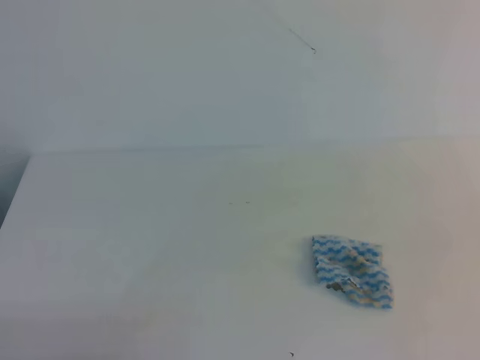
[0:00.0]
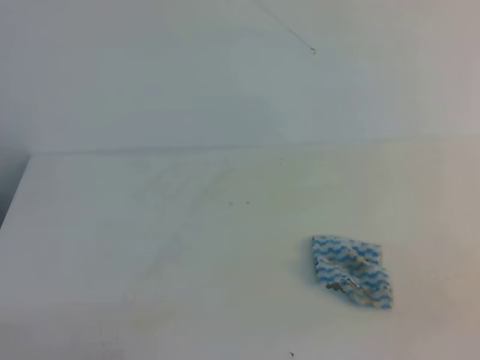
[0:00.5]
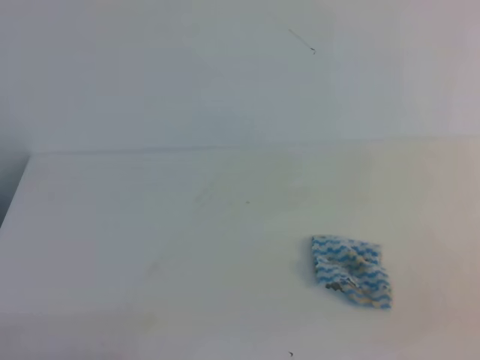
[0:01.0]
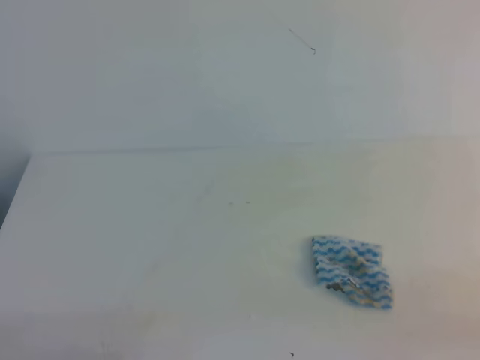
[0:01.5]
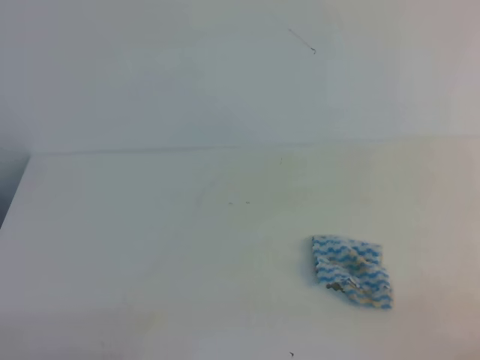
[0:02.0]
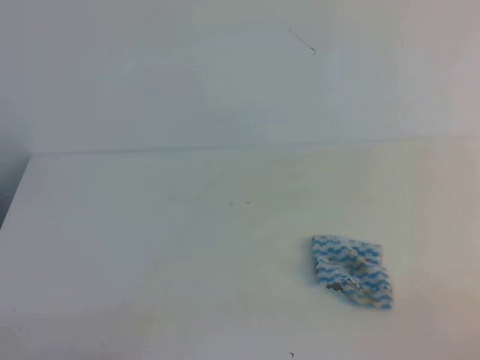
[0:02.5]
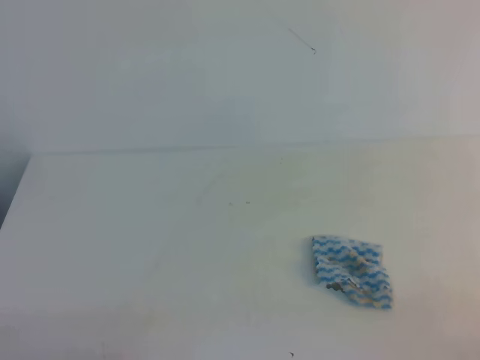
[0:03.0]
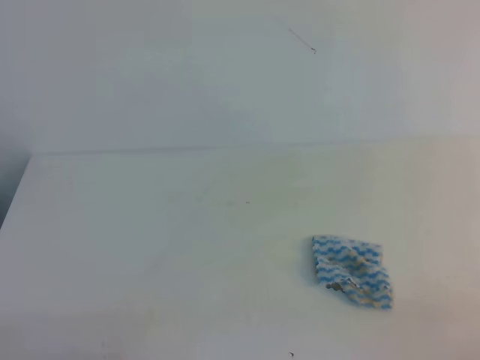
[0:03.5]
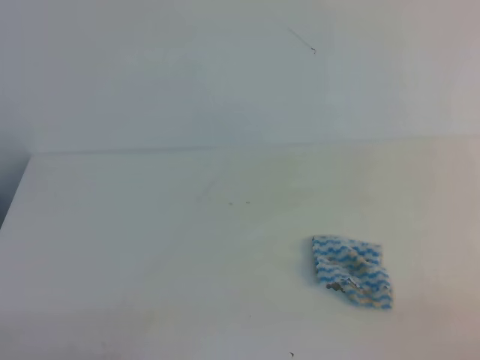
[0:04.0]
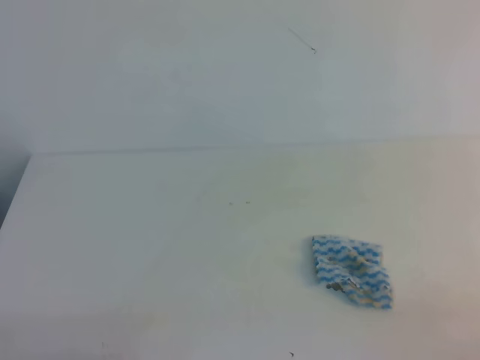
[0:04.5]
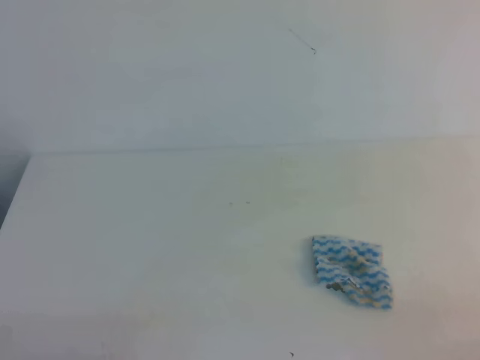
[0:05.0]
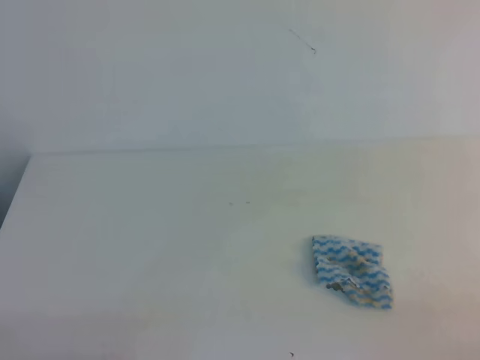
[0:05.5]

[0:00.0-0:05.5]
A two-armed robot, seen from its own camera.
0:03.5 to 0:05.5: The two grippers keep their place.

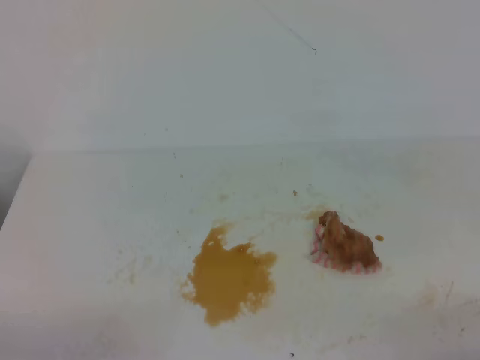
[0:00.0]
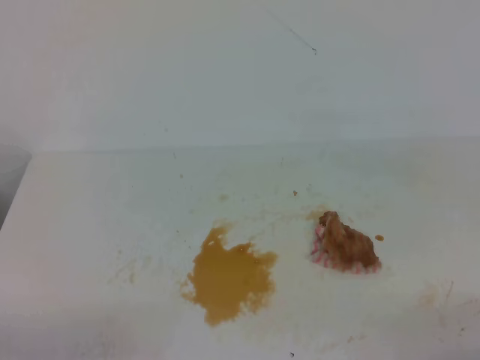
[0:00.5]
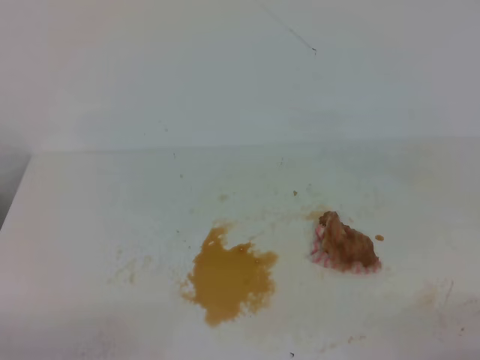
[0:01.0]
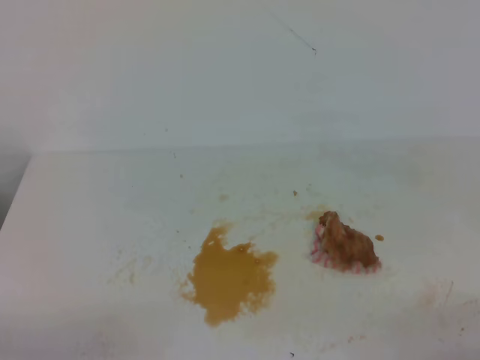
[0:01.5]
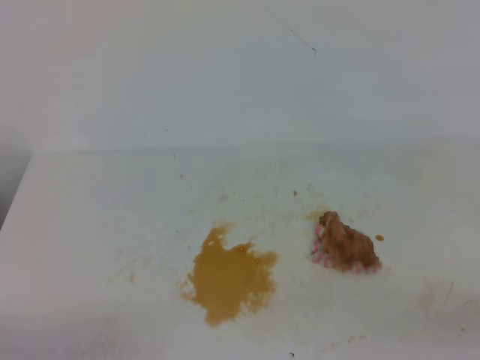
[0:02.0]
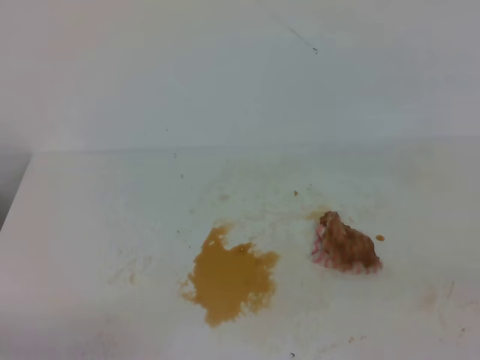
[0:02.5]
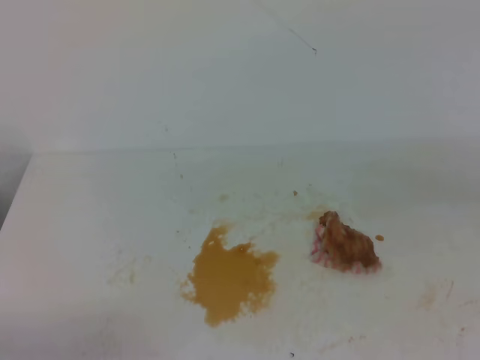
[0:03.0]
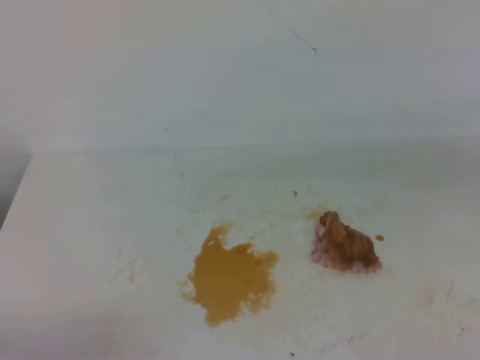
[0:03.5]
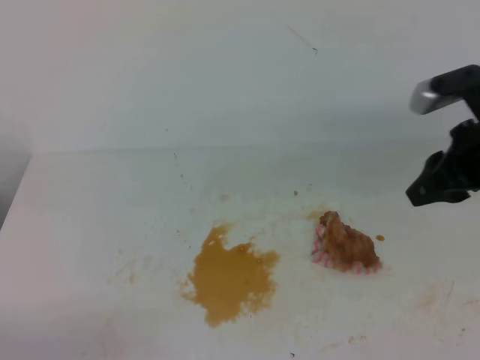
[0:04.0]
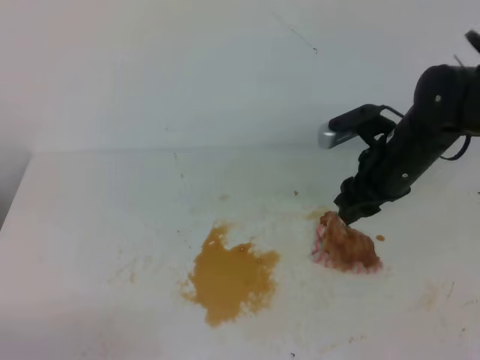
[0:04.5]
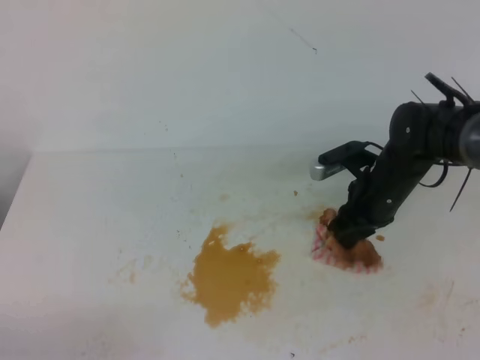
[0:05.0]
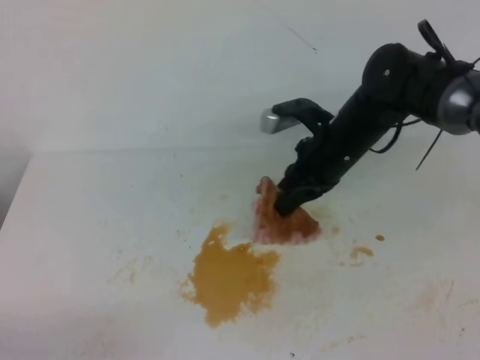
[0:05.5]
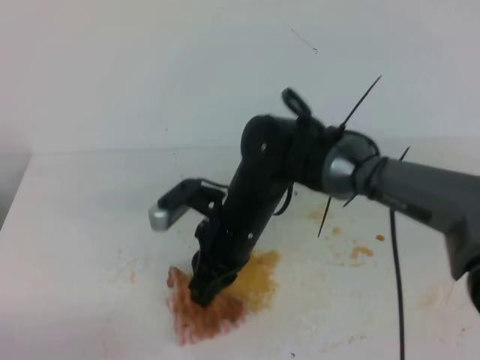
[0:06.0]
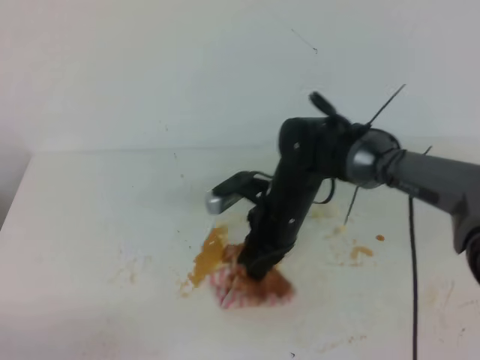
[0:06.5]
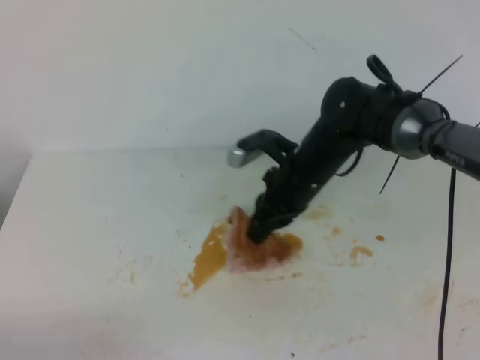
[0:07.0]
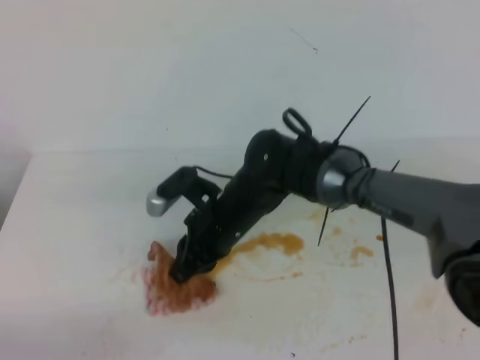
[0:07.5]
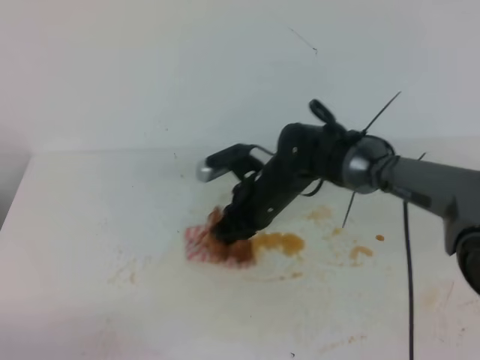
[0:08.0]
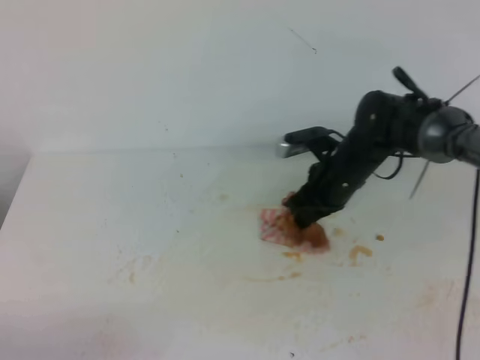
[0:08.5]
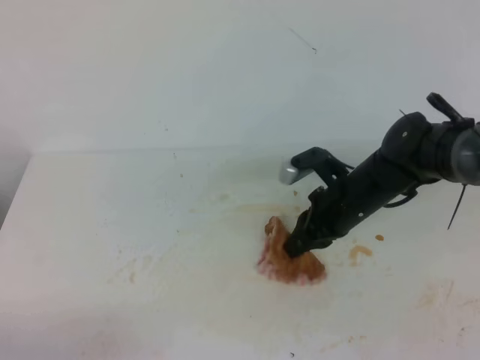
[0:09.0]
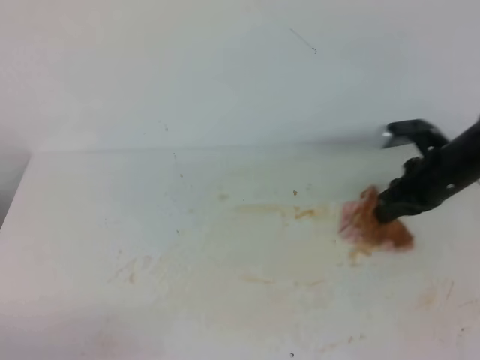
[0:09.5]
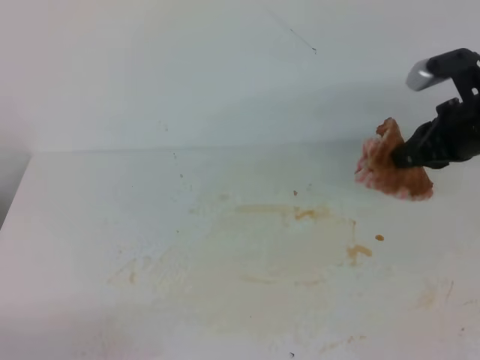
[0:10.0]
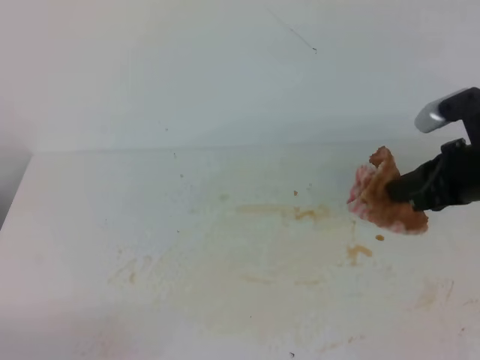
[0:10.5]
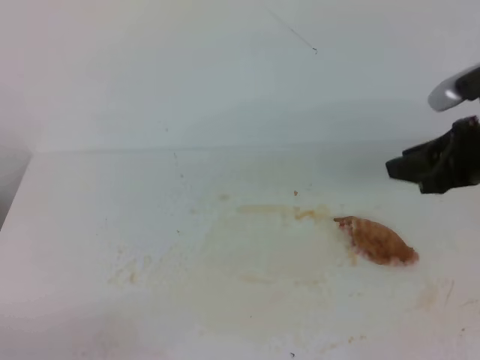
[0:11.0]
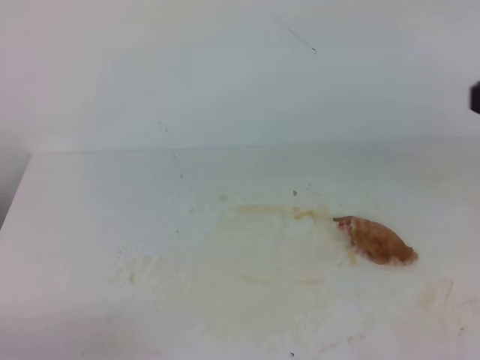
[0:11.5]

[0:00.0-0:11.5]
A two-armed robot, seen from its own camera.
0:02.0 to 0:04.0: The right gripper is displaced forward by roughly 25 cm, and opens.
0:04.0 to 0:06.0: The right gripper shifts some 25 cm to the left and downward, and closes.
0:06.0 to 0:07.5: The right gripper reaches about 5 cm to the right, then returns.
0:07.5 to 0:09.5: The right gripper heads to the right, covering some 25 cm.
0:09.5 to 0:11.5: The right gripper heads upward and backward, covering about 30 cm, and opens, then closes again.
